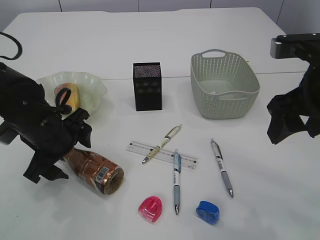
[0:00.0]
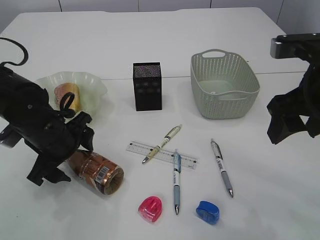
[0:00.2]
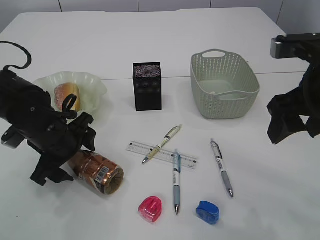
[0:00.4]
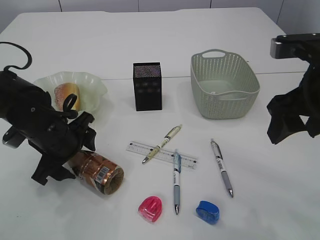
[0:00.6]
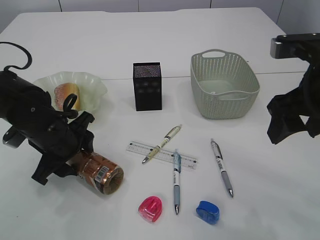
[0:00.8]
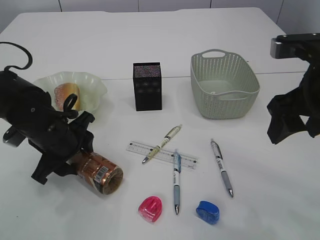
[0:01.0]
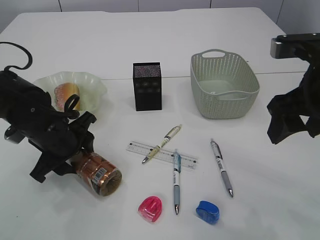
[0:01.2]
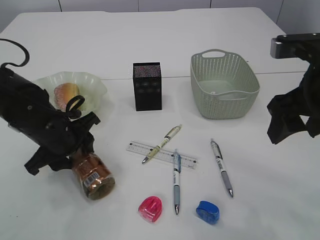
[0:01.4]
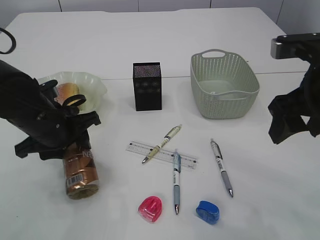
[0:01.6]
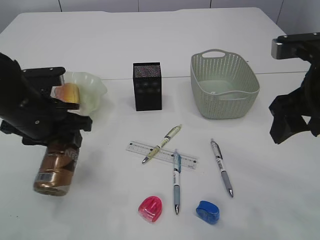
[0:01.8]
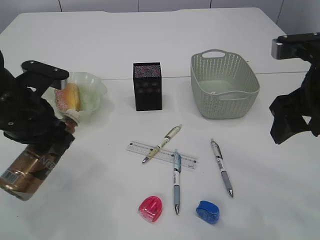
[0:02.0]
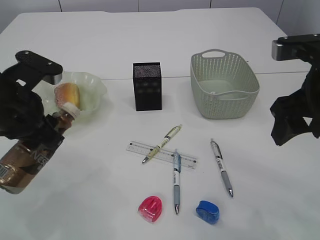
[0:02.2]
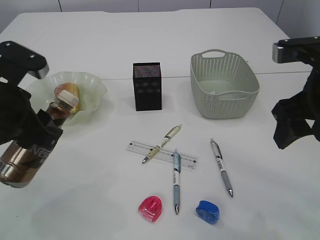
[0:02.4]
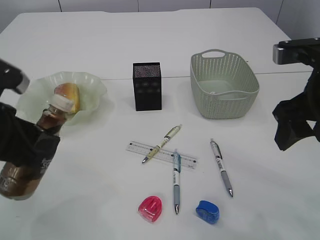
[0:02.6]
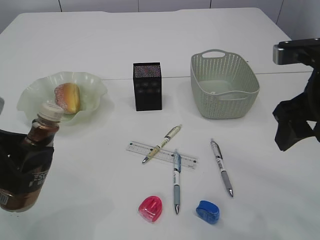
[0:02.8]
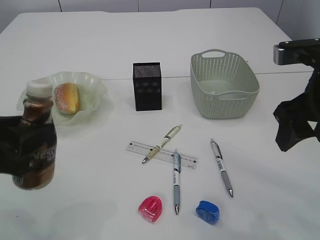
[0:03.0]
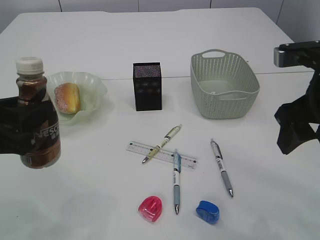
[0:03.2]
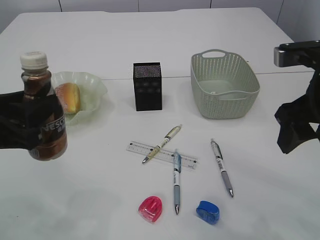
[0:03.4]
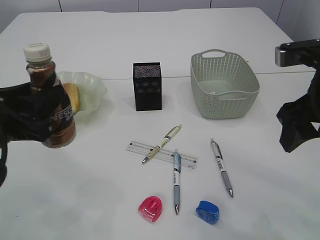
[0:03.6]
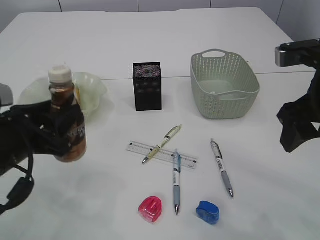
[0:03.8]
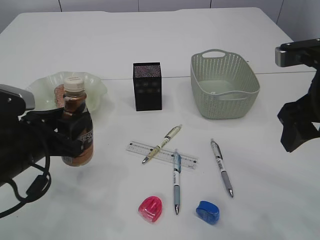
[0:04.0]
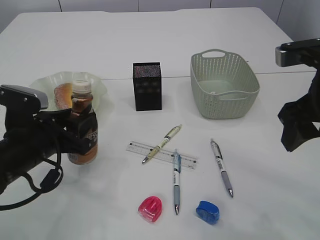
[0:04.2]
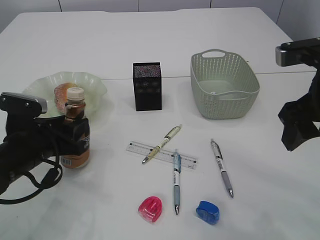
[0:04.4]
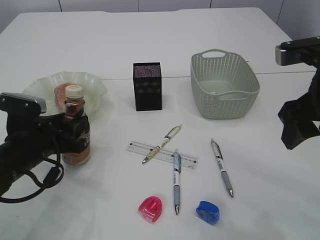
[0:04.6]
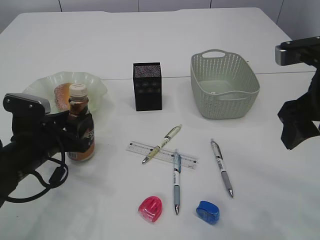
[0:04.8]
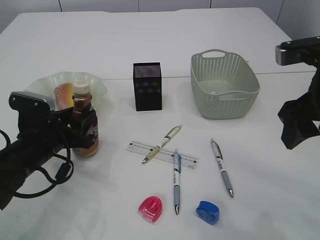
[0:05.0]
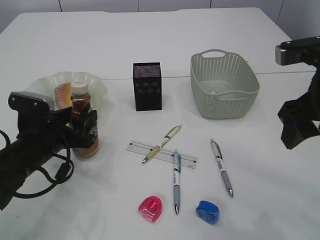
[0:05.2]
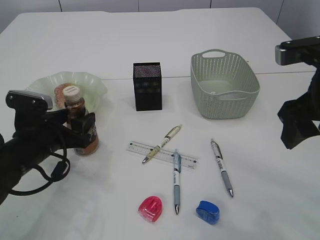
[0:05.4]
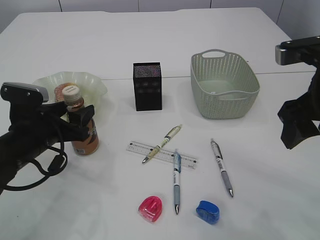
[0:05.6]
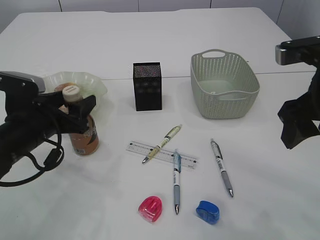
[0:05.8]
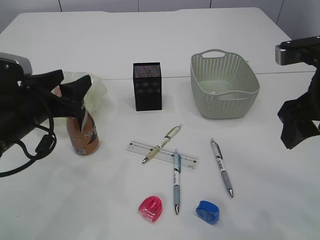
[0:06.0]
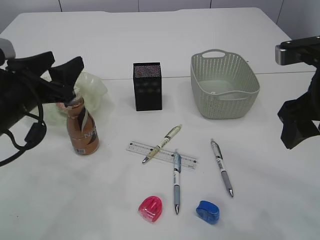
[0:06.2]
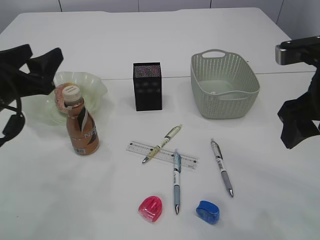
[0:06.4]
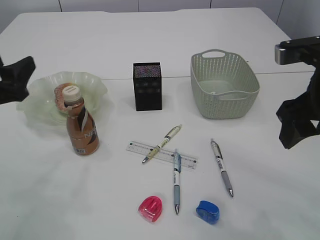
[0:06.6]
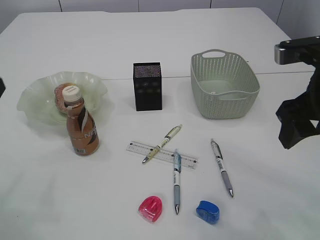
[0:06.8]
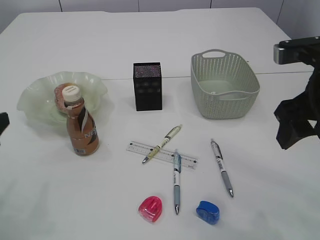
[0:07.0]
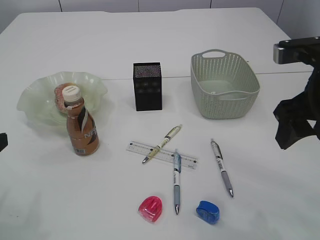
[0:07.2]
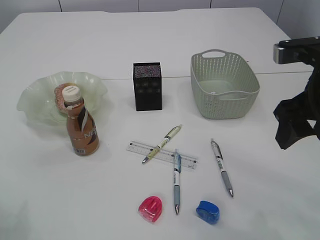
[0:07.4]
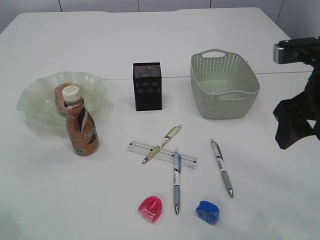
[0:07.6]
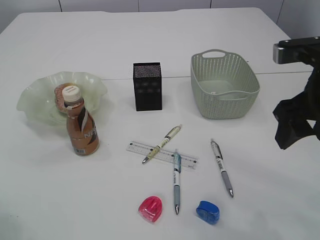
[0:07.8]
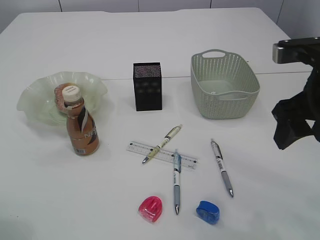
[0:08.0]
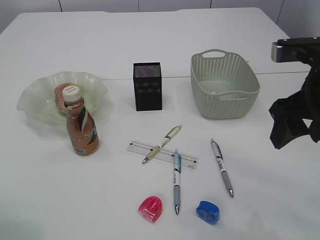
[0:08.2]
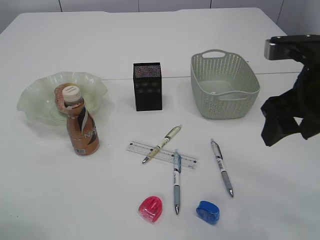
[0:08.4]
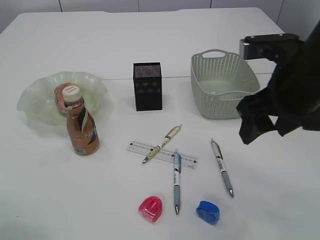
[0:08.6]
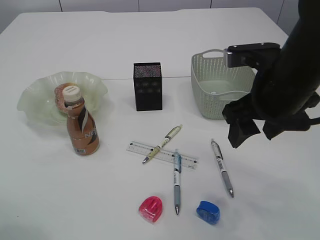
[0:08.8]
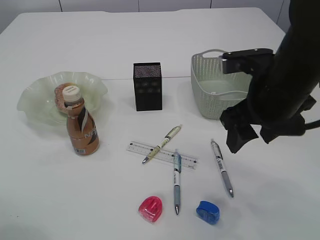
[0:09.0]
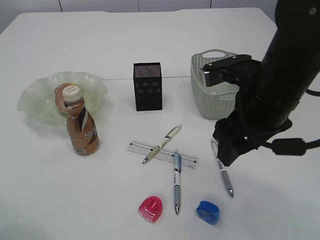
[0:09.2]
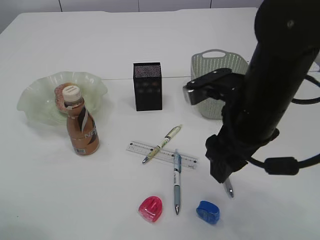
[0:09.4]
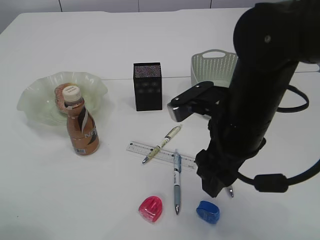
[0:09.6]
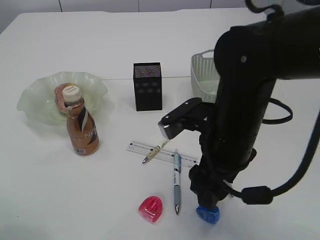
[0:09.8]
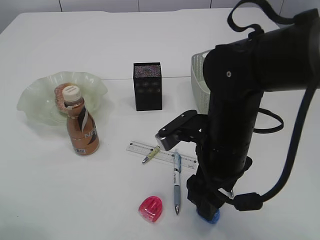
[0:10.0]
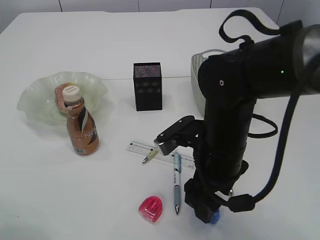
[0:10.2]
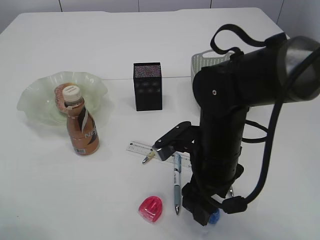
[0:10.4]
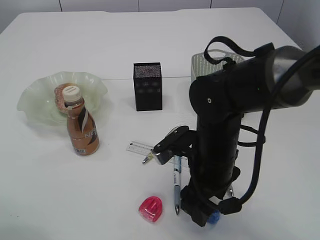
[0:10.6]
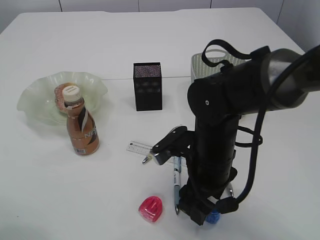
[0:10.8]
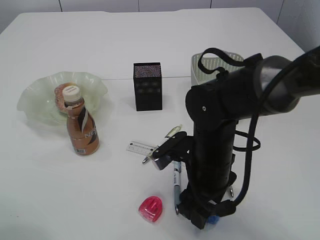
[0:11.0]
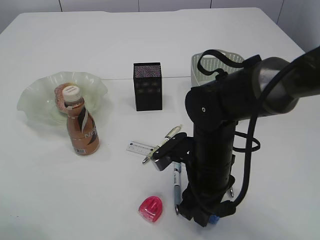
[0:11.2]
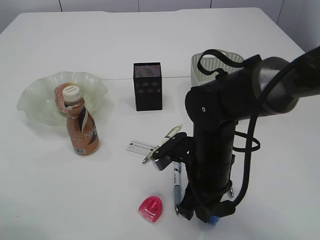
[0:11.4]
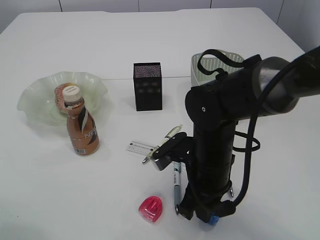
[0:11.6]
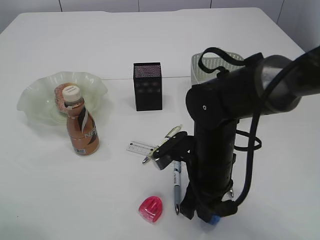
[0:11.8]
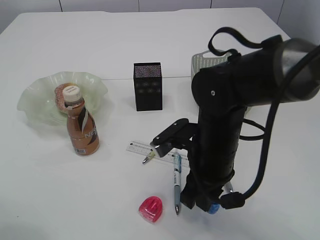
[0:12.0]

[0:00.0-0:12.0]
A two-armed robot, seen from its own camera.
Step, 0:00.0 to 0:02.0: Pick up the bottle with the left arm.
Step, 0:02.2 to 0:06.2: Place the bottle.
0:00.0 to 0:01.6: The left gripper closes.
0:01.6 to 0:03.0: The left gripper moves backward, upward and to the left, roughly 15 cm.
0:03.0 to 0:04.4: The left gripper is displaced downward and forward by approximately 15 cm.
0:04.4 to 0:06.0: The left gripper shifts about 5 cm upward, and opens.
0:06.0 to 0:07.6: The left gripper moves to the left and backward, some 15 cm.
0:07.6 to 0:09.0: The right gripper moves to the left, some 5 cm.
0:09.0 to 0:10.4: The right gripper moves downward and to the left, approximately 10 cm.
0:10.4 to 0:12.0: The right gripper closes its fingers.

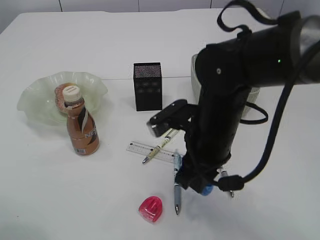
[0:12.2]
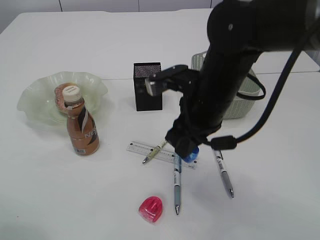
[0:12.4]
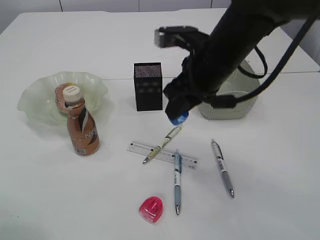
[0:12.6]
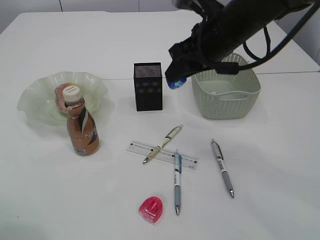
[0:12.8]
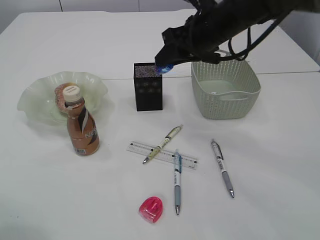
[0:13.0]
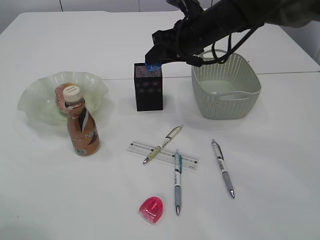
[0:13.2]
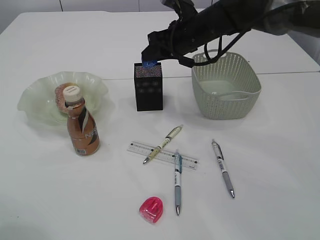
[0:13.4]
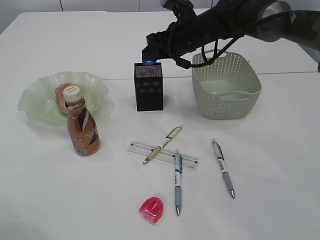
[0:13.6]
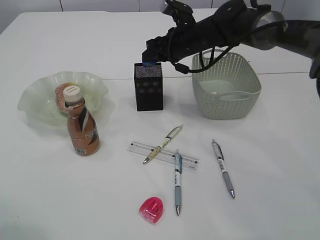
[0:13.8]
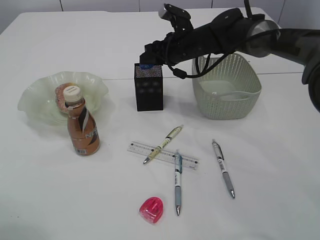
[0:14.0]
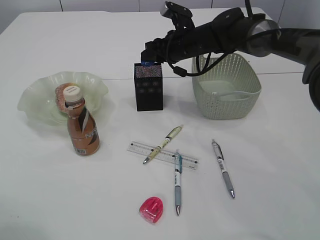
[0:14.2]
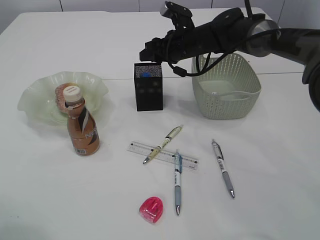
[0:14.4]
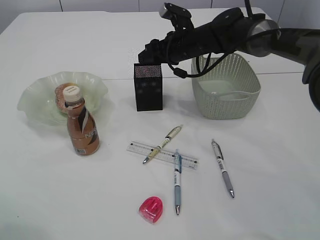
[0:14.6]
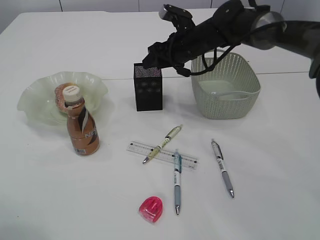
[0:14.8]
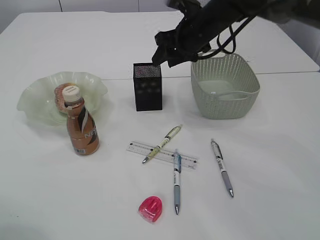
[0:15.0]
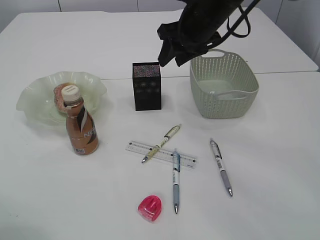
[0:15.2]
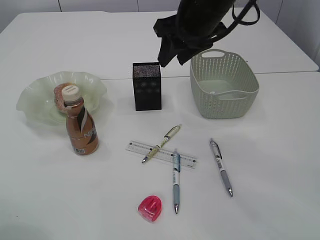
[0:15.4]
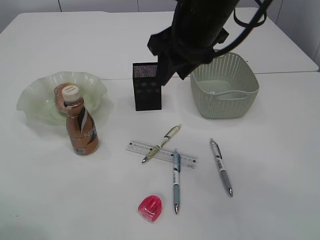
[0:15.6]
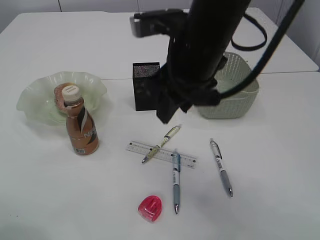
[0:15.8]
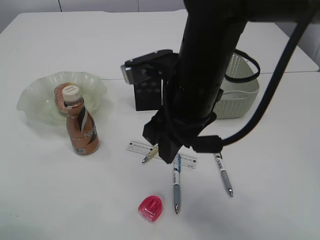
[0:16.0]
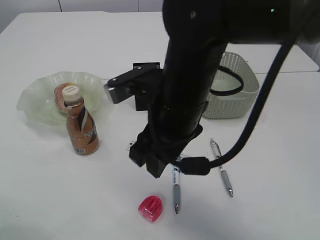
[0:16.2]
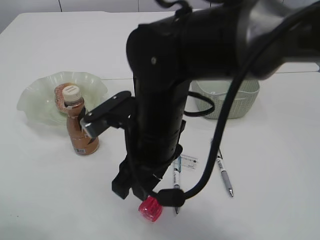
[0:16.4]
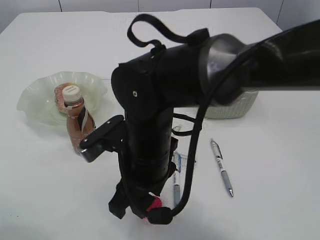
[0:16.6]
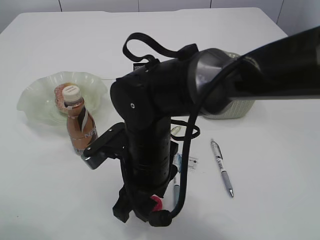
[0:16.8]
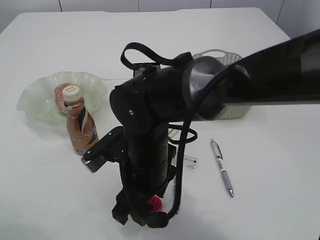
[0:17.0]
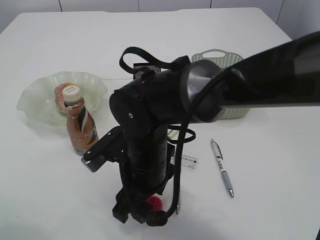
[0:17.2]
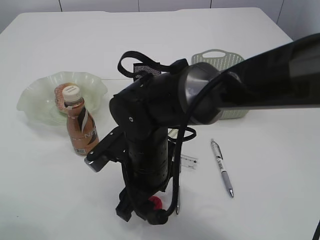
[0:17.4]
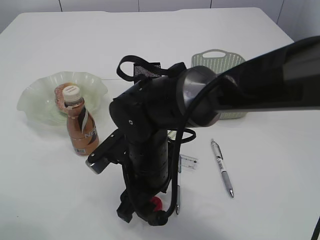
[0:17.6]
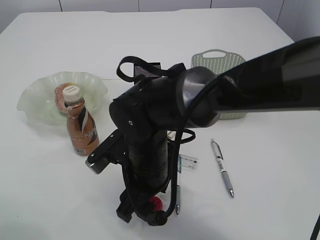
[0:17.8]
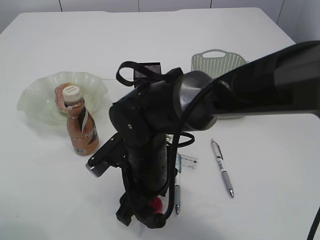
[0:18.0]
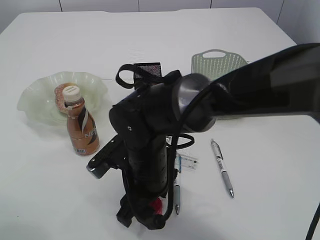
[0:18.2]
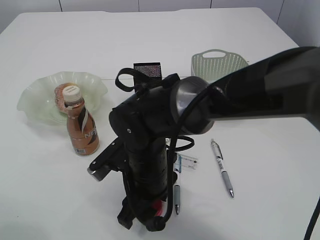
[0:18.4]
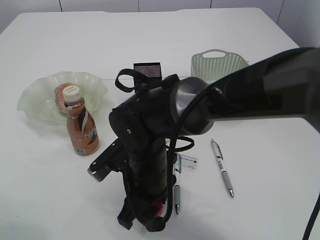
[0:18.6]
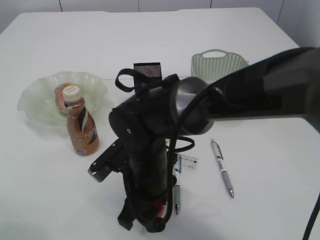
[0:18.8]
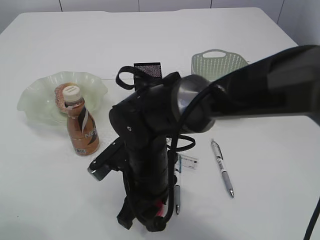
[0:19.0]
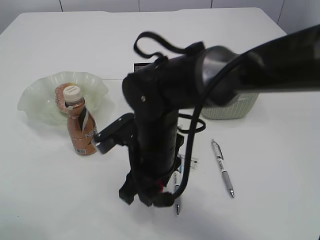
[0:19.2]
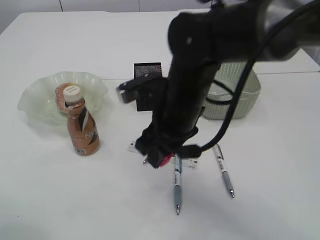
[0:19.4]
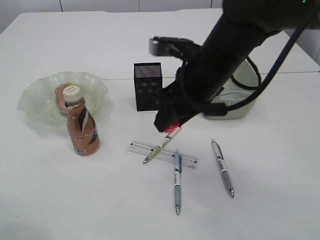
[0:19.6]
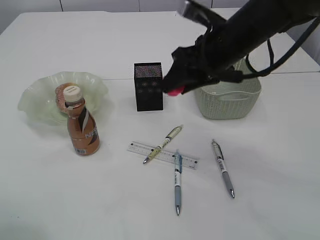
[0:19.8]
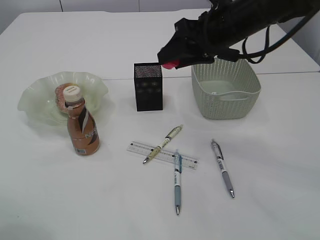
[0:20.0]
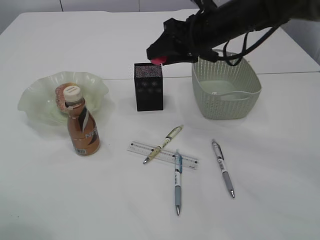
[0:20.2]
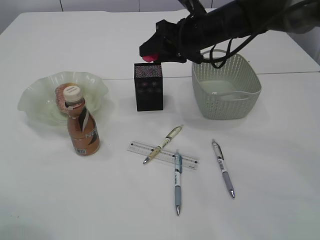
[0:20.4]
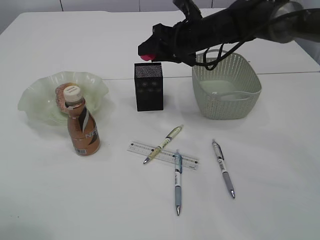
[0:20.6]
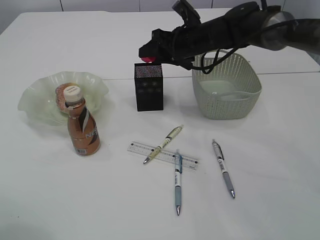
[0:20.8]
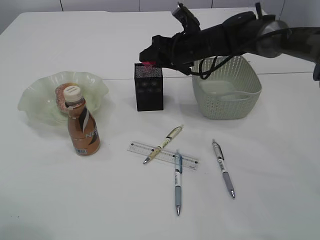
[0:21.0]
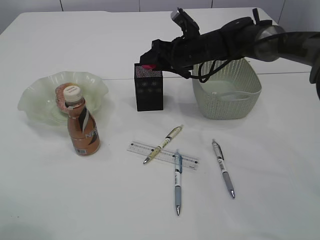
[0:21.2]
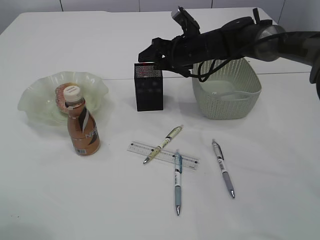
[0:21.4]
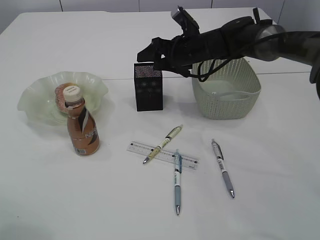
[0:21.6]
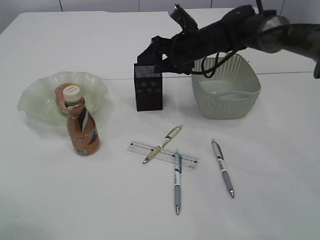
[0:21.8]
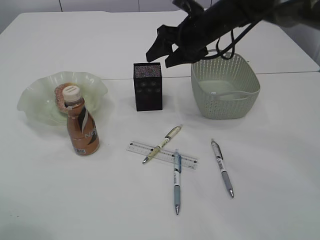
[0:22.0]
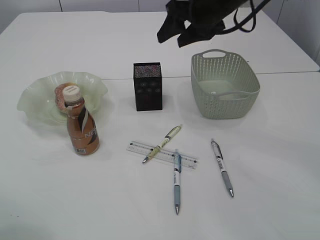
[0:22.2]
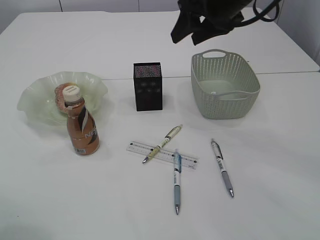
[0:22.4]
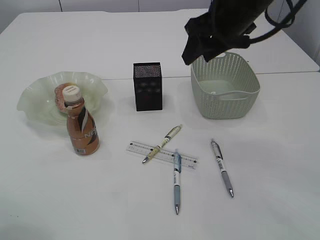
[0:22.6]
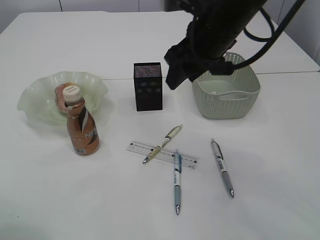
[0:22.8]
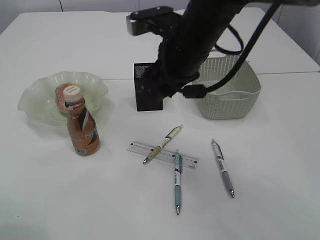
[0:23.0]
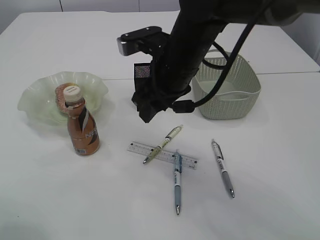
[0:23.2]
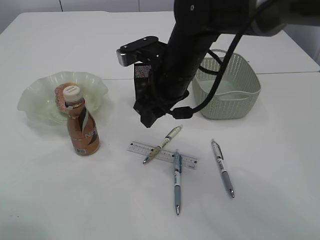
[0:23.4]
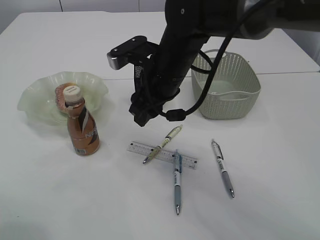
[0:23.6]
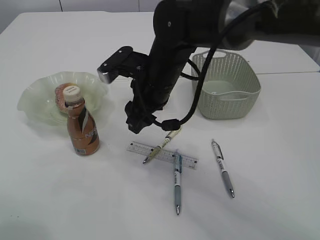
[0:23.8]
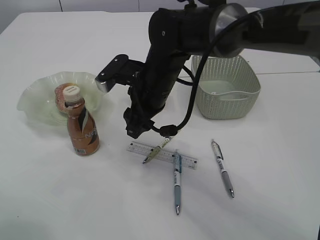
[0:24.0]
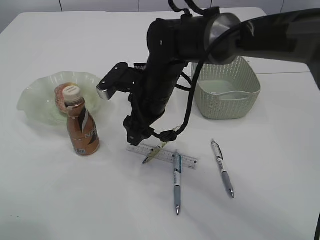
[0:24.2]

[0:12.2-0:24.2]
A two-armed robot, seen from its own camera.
Step, 0:12.2 to 0:14.6: Place the blue pencil sharpener into the pen holder.
Step, 0:14.8 to 0:19.4: Pick up the red pencil sharpener.
Step, 0:19.6 to 0:21.6: Place the red pencil sharpener into the pen holder.
0:12.2 to 0:13.8: The right gripper travels forward by some 25 cm.
0:13.8 to 0:15.2: The right gripper goes some 10 cm upward and backward, and opens.
0:15.2 to 0:16.6: The right gripper moves backward, to the left and downward, roughly 25 cm.
0:16.6 to 0:18.2: The right gripper is displaced downward by some 5 cm.
0:18.2 to 0:19.8: The right gripper shifts about 20 cm upward, to the right and forward.
0:19.8 to 0:21.2: The right gripper goes about 15 cm forward and downward.
0:21.2 to 0:22.6: The right gripper heads upward and backward, covering approximately 20 cm.
0:22.6 to 0:24.2: The right gripper heads downward and to the left, covering about 20 cm.
